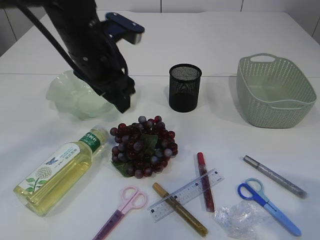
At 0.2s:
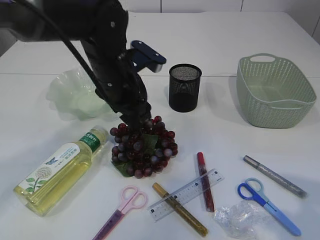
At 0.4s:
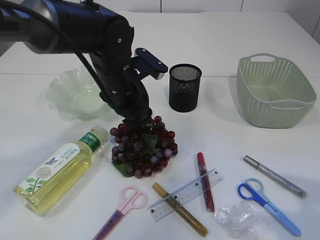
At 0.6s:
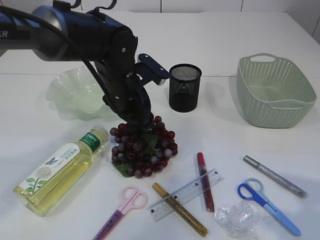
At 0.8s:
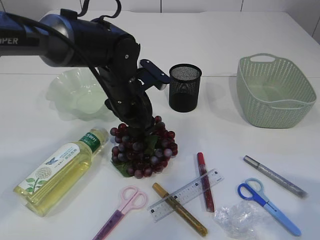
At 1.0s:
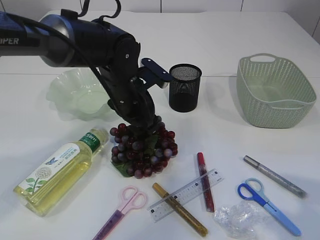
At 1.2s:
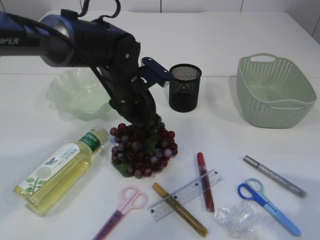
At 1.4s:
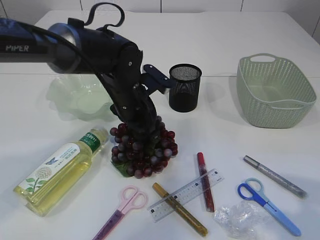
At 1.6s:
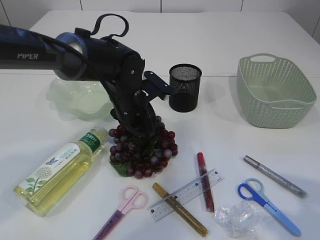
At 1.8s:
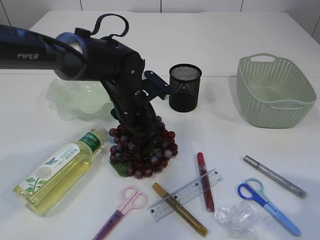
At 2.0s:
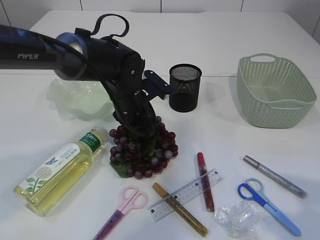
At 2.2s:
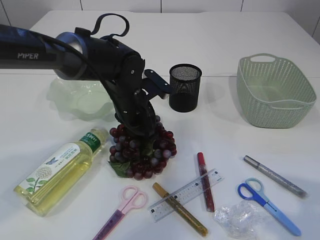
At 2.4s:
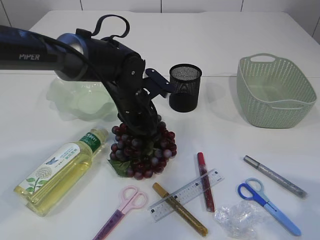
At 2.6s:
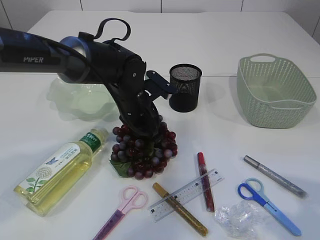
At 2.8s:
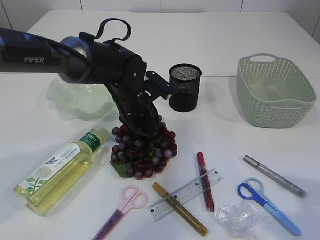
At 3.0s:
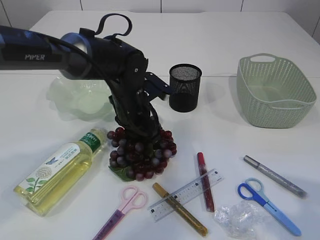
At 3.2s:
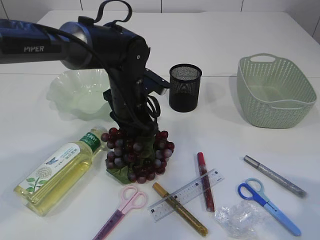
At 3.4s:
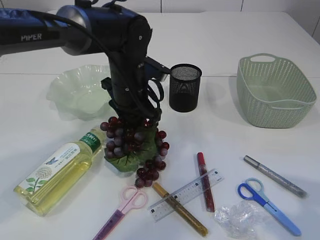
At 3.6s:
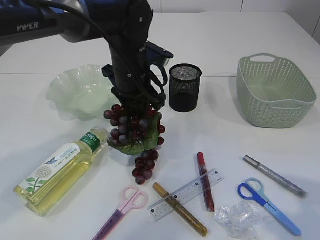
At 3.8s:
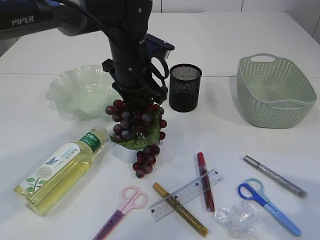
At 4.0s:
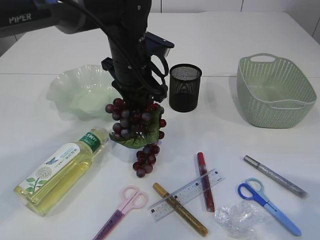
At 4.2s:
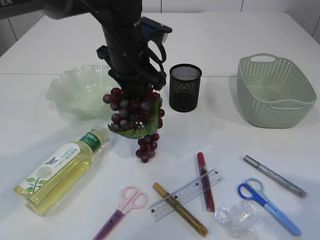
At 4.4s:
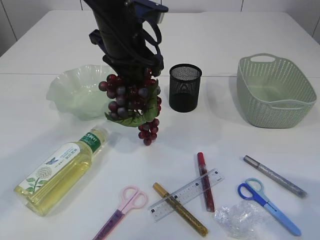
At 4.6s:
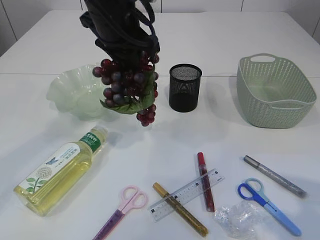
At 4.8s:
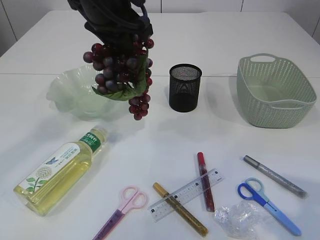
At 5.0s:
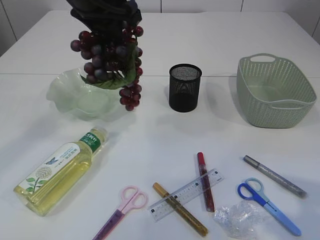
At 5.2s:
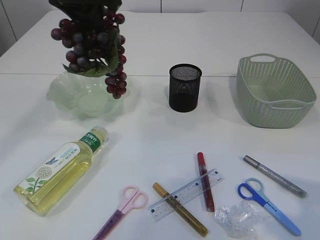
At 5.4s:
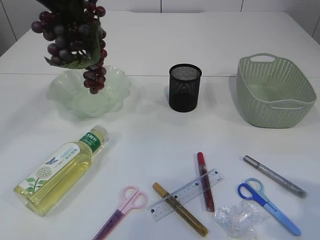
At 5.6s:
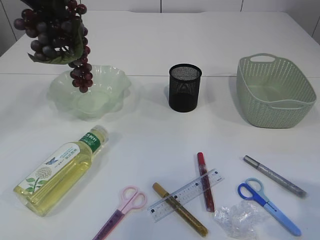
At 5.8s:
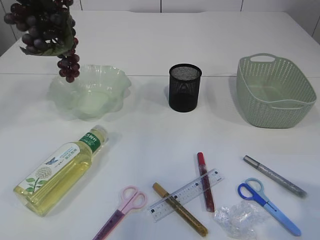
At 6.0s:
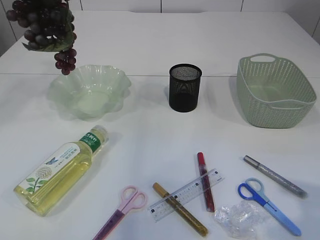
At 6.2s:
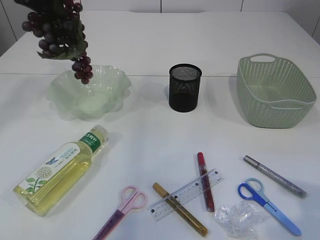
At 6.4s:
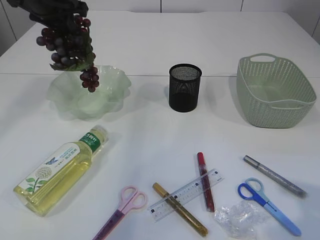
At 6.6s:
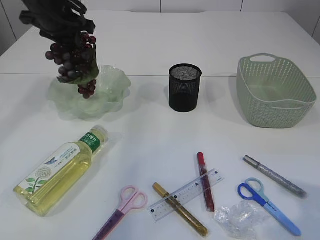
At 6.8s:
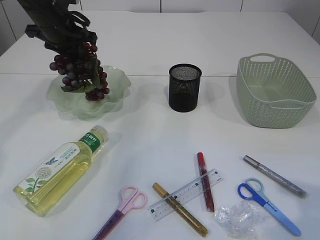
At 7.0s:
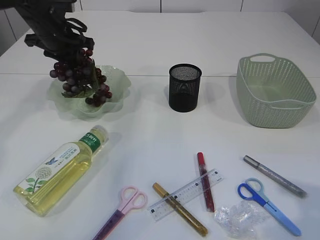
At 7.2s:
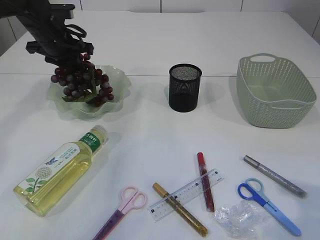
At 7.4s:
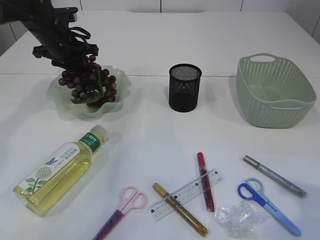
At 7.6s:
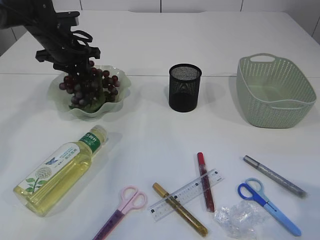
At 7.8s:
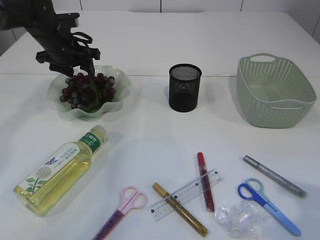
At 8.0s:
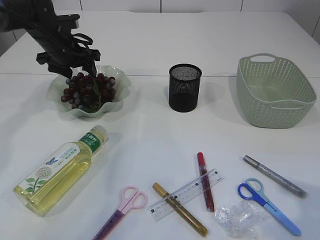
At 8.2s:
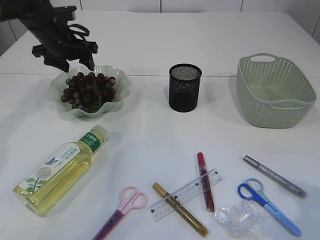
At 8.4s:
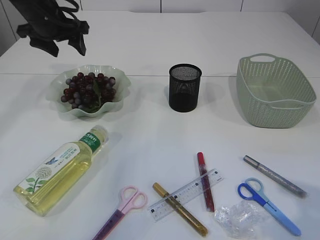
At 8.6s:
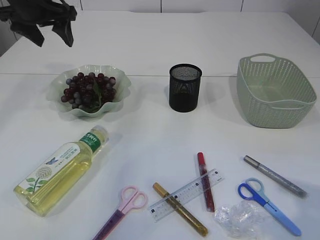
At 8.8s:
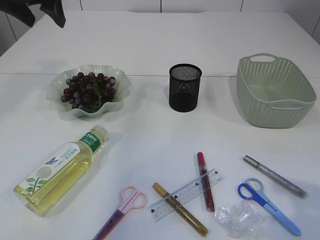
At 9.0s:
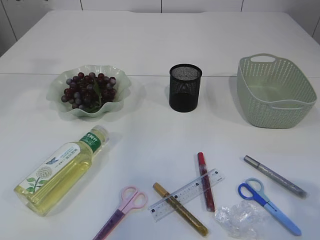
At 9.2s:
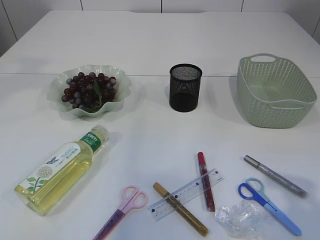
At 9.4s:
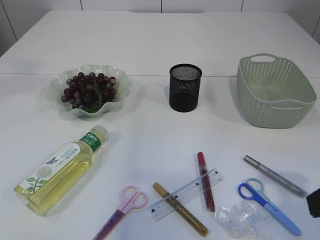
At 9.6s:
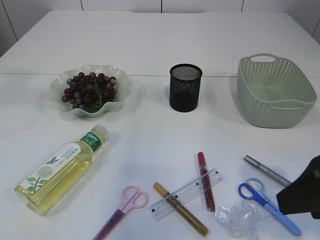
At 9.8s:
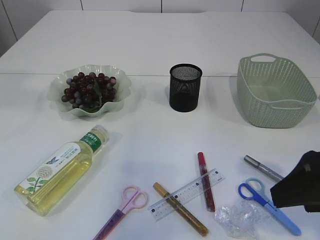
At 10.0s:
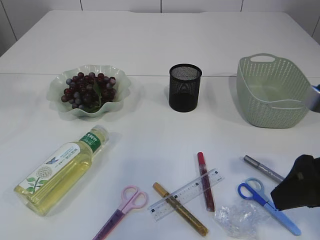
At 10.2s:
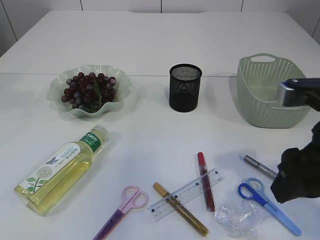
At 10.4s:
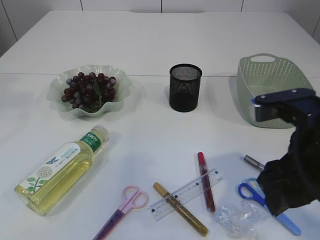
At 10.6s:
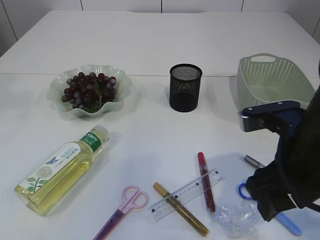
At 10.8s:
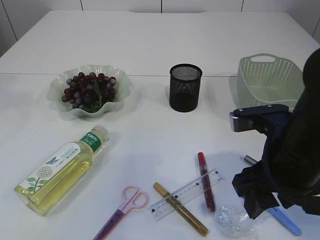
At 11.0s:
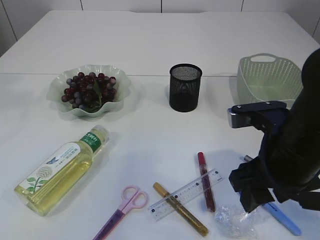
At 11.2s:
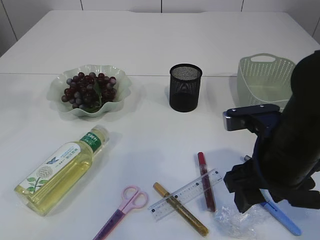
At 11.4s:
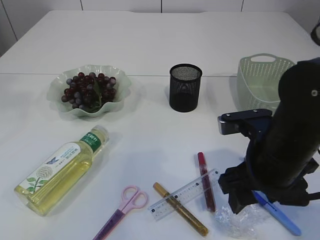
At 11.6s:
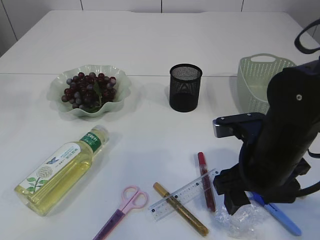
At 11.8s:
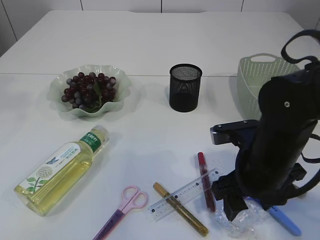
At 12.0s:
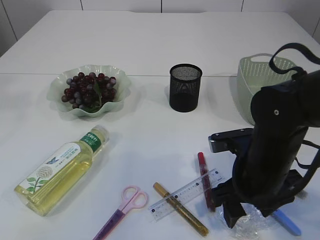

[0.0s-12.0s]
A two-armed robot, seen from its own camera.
Step, 0.0s to 4.4s: Pick up the grapes.
Step, 4.6s to 8.6s: Place the grapes in the plate.
0.0s to 1.6s: The left gripper travels downward by roughly 10 cm.
1.6s to 3.0s: The left gripper closes.
3.0s to 4.4s: The left gripper heads upward, covering some 15 cm.
4.4s to 6.0s: The left gripper shifts about 20 cm to the left and upward.
6.0s to 7.6s: The left gripper goes some 20 cm downward and forward.
7.6s to 9.0s: The left gripper moves upward and backward, about 20 cm, and opens its fingers.
9.0s to 10.4s: The right gripper goes roughly 10 cm forward and to the left.
10.4s to 12.0s: The right gripper heads downward and forward, covering roughly 10 cm.

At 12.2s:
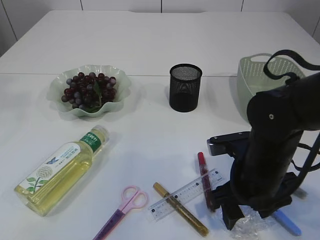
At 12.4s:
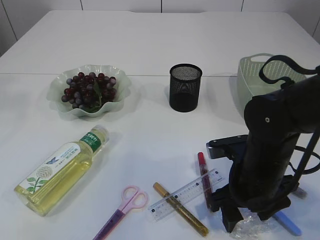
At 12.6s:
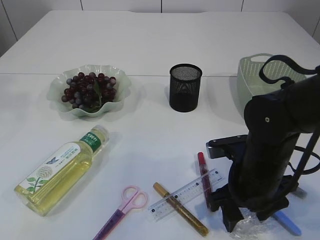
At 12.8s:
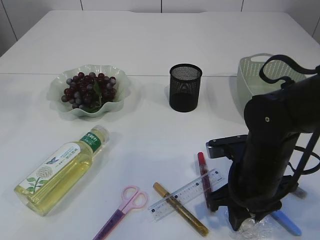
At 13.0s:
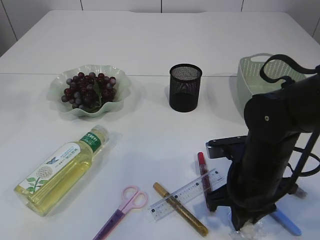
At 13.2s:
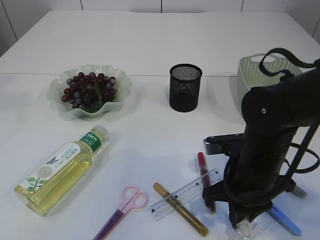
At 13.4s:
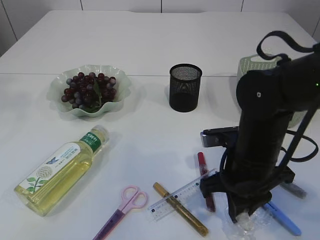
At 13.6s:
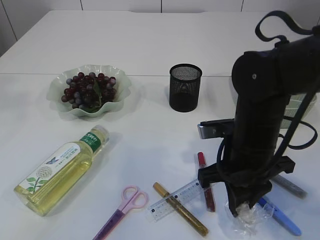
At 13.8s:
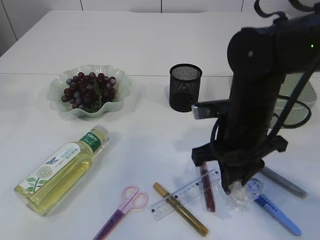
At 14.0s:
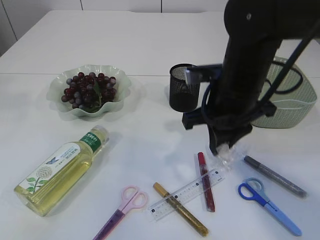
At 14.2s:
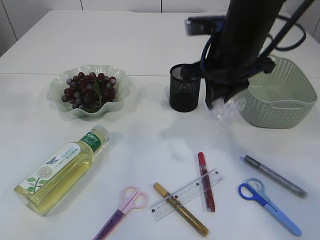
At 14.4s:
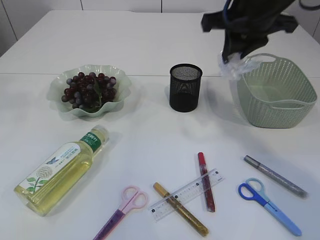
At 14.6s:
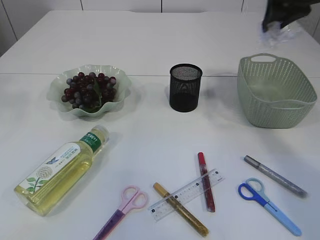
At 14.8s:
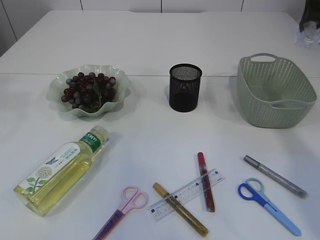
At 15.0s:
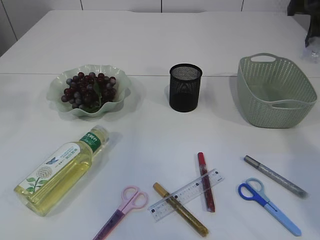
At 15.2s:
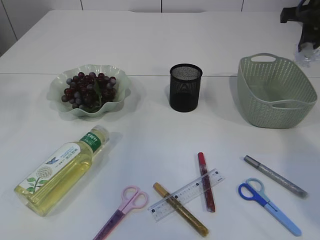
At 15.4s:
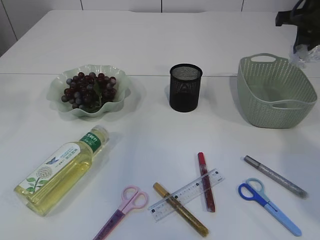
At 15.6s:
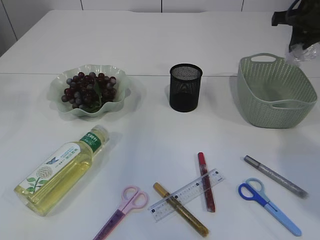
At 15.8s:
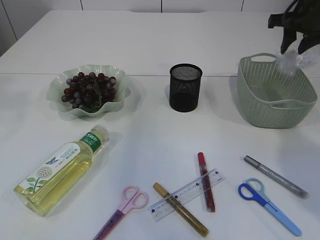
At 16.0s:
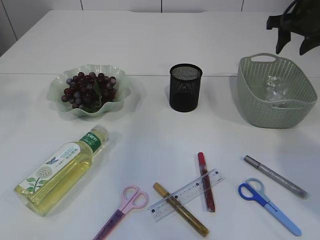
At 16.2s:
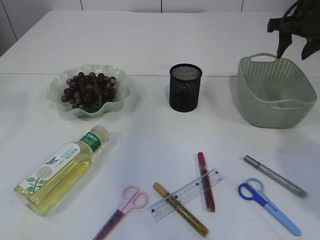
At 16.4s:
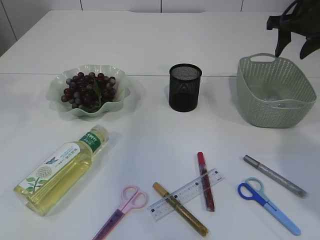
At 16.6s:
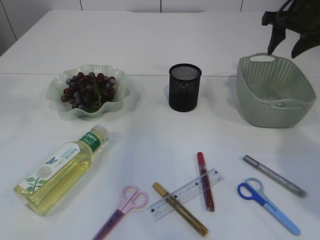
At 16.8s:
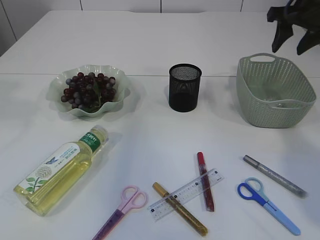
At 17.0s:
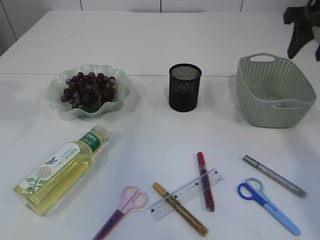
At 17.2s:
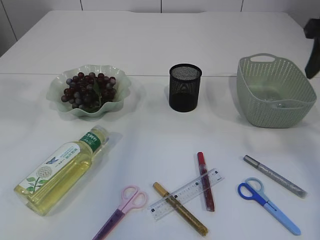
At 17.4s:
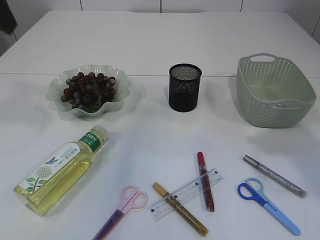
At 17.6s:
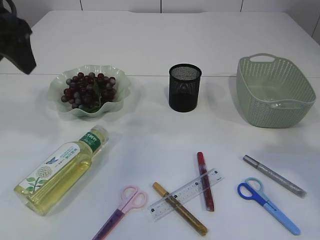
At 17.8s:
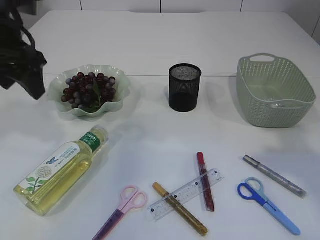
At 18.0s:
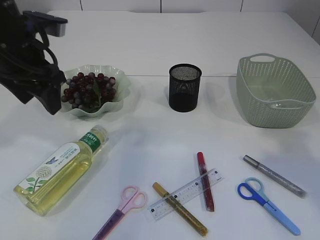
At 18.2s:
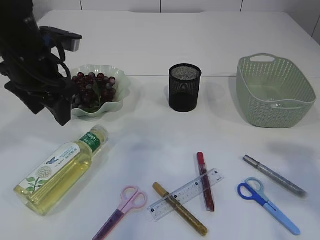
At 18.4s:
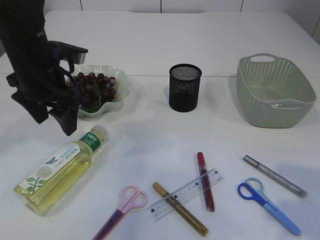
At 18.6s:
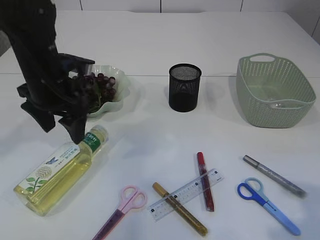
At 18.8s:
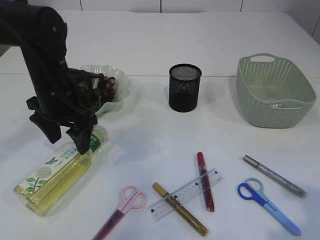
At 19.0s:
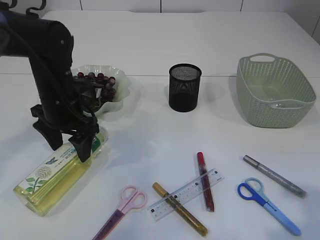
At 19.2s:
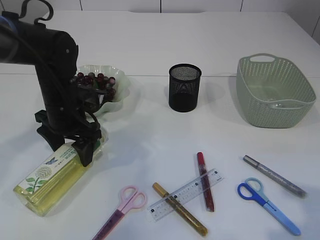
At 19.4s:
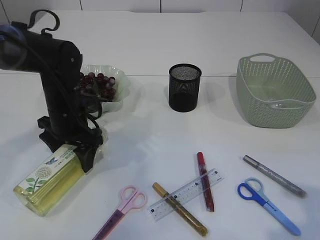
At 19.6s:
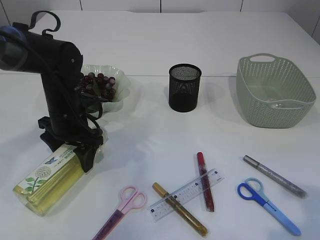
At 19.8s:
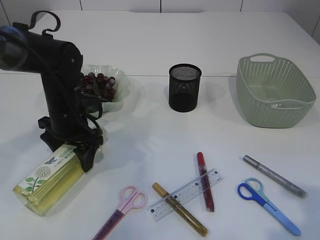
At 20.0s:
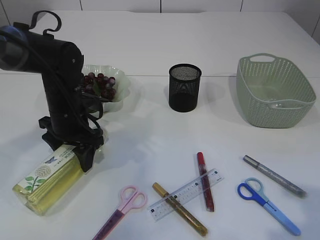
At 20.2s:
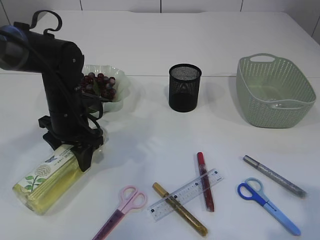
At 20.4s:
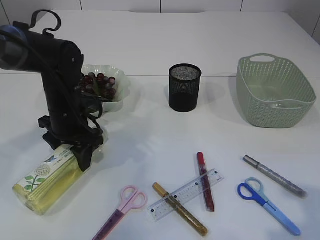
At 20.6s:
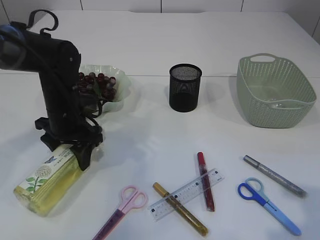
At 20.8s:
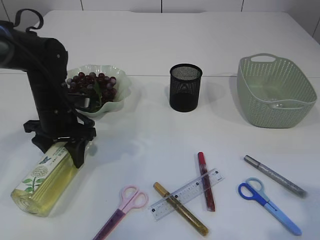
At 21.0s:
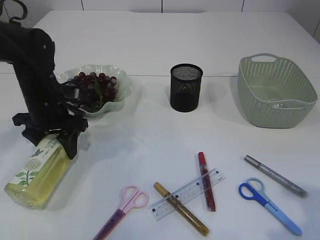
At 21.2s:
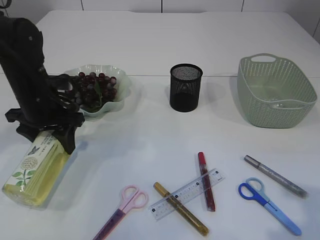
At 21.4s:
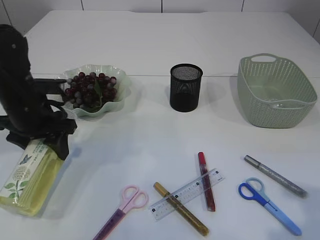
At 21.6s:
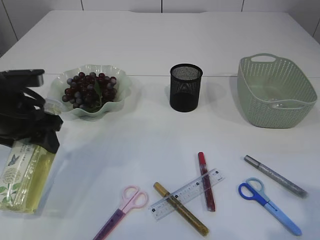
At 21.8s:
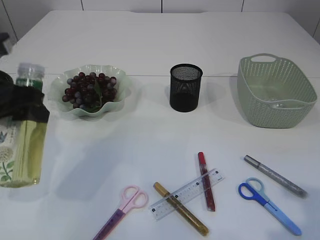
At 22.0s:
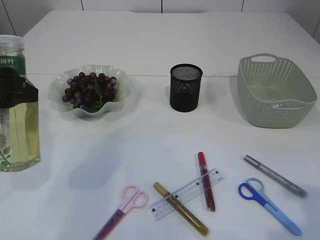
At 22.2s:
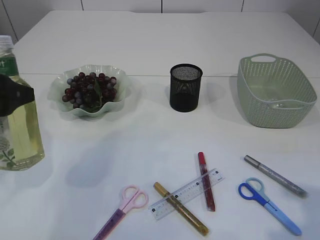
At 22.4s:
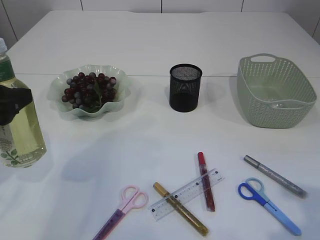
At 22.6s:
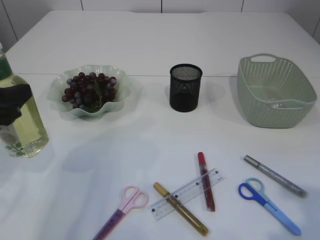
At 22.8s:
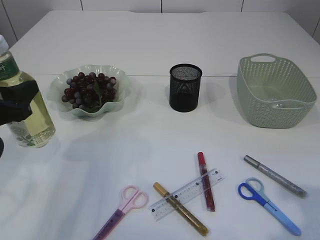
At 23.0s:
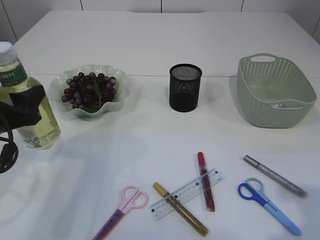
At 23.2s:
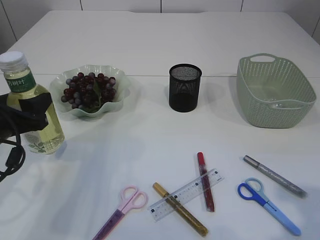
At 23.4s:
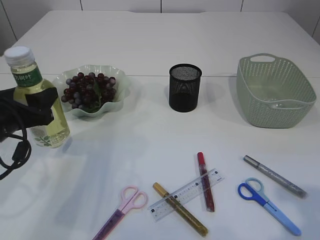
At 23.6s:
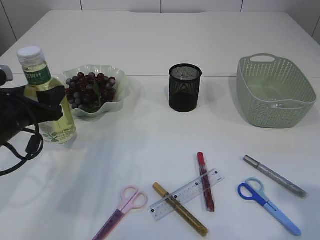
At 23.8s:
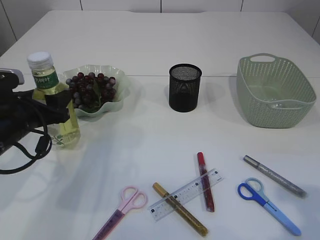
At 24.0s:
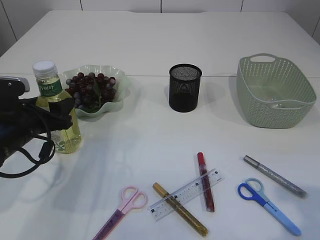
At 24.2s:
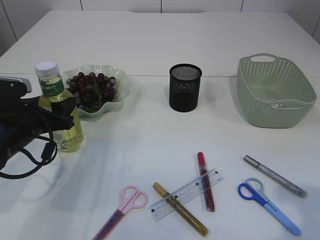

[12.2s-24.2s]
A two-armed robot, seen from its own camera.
Step, 13.8s to 16.6s: Place the plastic in the basket.
Step, 16.8s to 21.4s: Pick up the bottle with the left arm.
12.2s to 13.8s: The right gripper is displaced upward by about 5 cm, and closes up.
13.8s to 15.2s: The right gripper shifts roughly 25 cm to the right, forward and upward.
15.2s to 16.6s: The right gripper opens up.
16.6s to 18.2s: The left gripper goes roughly 20 cm downward. Meanwhile the right gripper heads backward, covering some 30 cm.
18.2s to 19.8s: The left gripper heads downward, covering about 15 cm, while the right gripper is displaced downward and backward by approximately 10 cm.
19.8s to 21.2s: The left gripper changes place by approximately 5 cm.
21.2s to 22.6s: The left gripper is displaced backward by some 15 cm.
22.6s to 24.2s: The left gripper travels downward and forward by roughly 15 cm.
